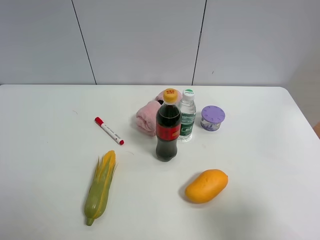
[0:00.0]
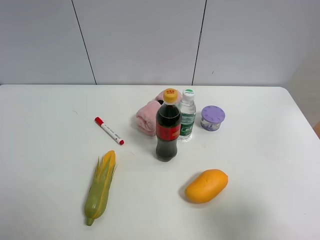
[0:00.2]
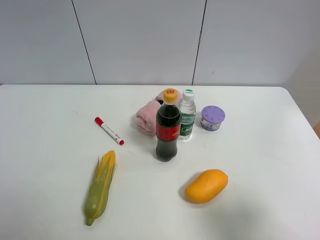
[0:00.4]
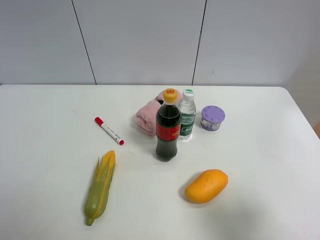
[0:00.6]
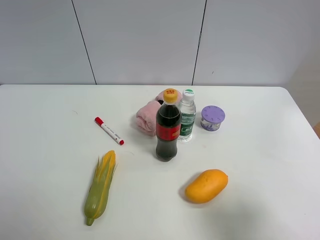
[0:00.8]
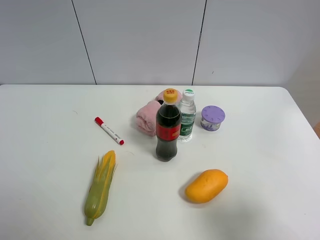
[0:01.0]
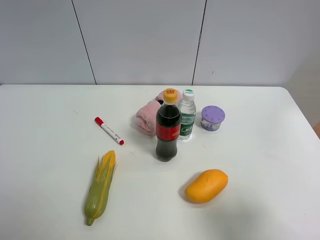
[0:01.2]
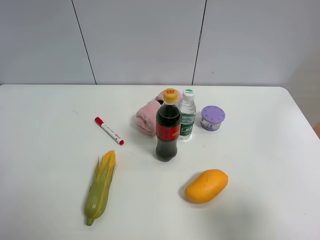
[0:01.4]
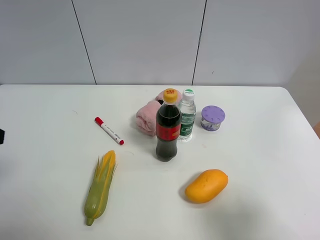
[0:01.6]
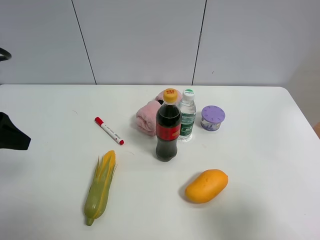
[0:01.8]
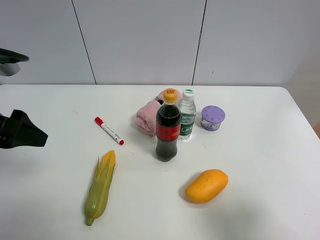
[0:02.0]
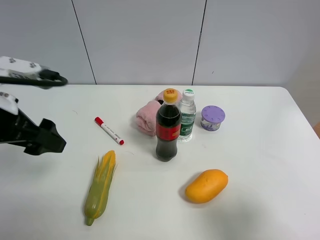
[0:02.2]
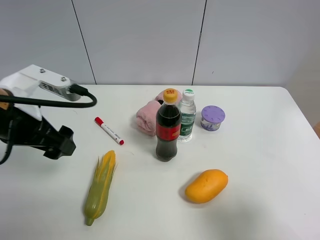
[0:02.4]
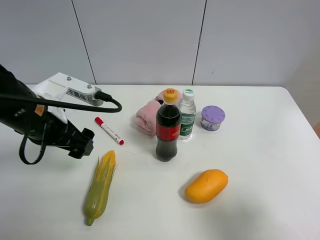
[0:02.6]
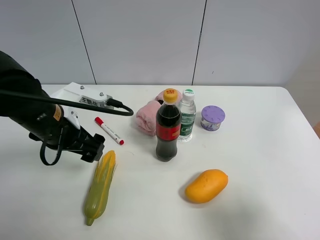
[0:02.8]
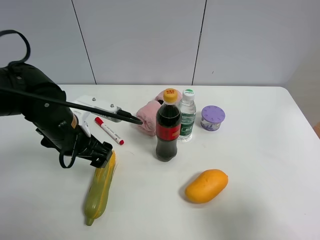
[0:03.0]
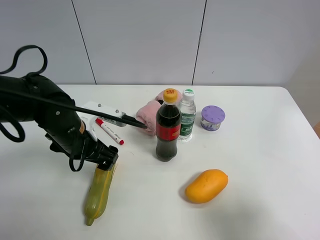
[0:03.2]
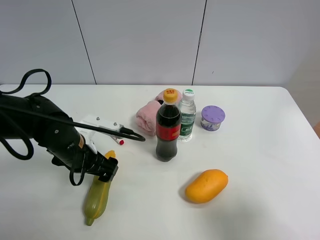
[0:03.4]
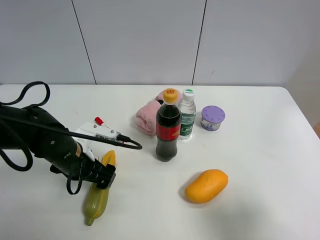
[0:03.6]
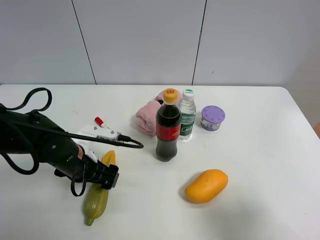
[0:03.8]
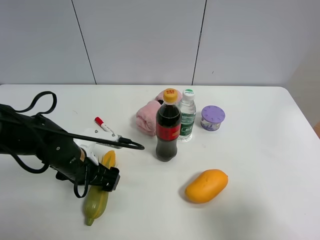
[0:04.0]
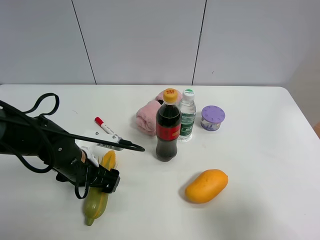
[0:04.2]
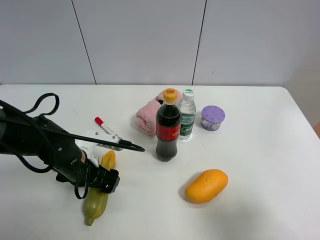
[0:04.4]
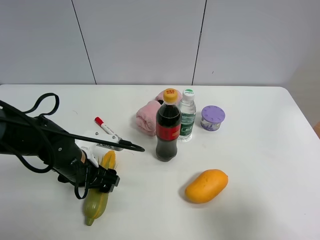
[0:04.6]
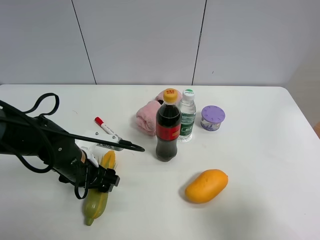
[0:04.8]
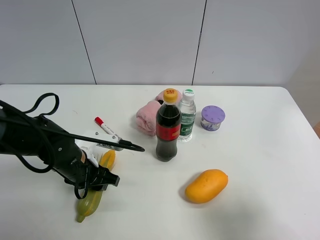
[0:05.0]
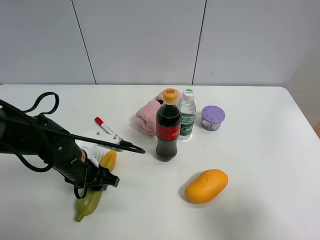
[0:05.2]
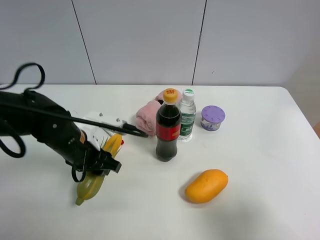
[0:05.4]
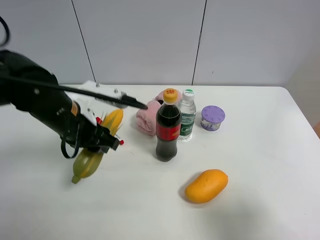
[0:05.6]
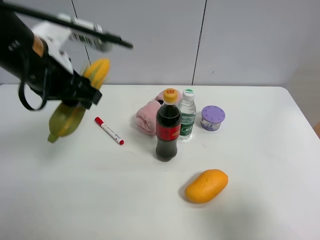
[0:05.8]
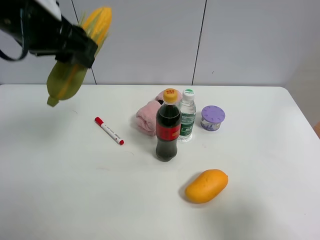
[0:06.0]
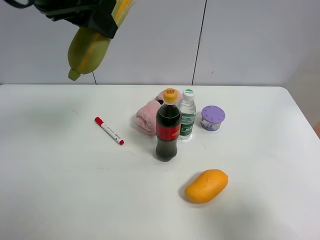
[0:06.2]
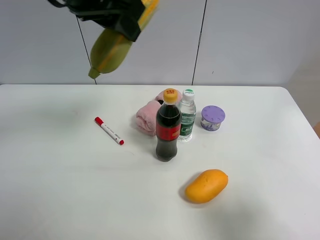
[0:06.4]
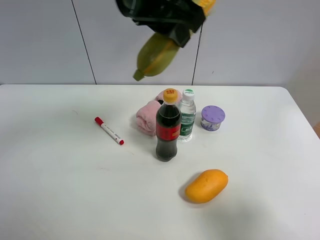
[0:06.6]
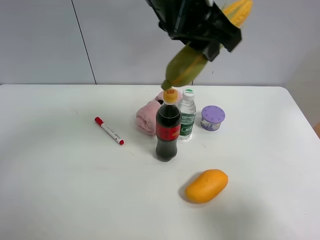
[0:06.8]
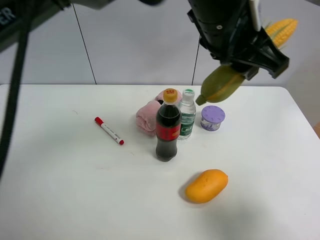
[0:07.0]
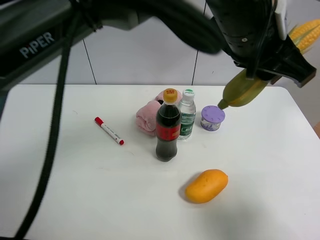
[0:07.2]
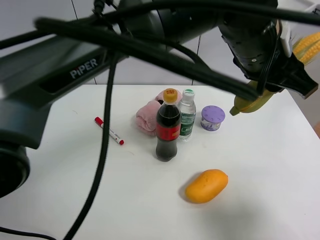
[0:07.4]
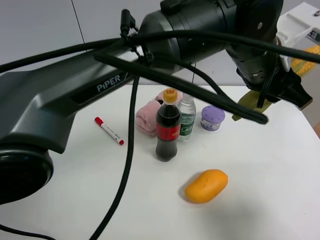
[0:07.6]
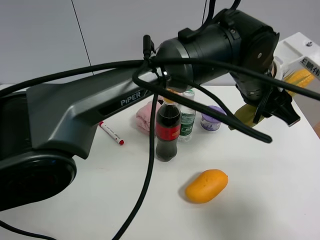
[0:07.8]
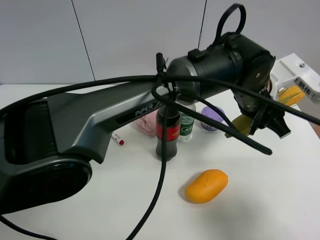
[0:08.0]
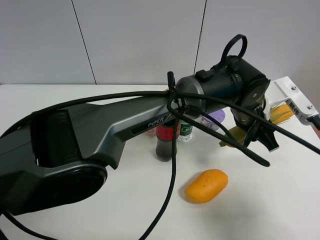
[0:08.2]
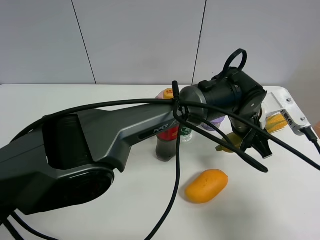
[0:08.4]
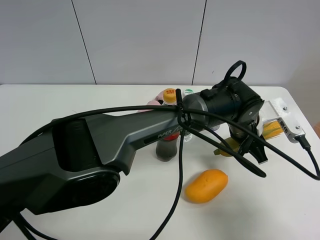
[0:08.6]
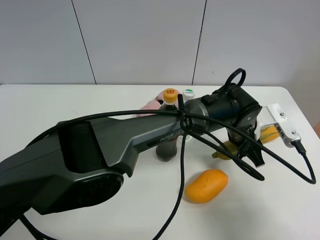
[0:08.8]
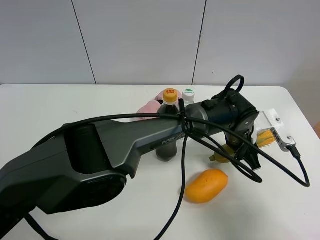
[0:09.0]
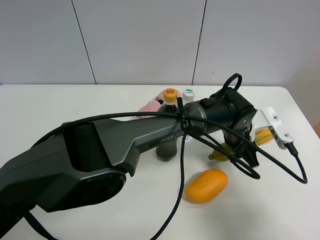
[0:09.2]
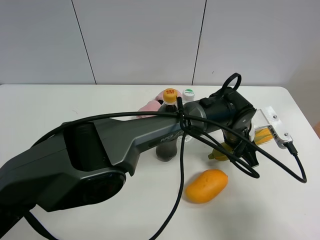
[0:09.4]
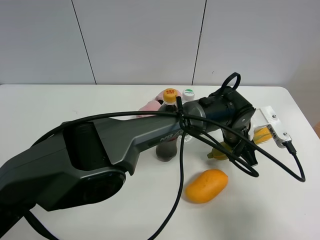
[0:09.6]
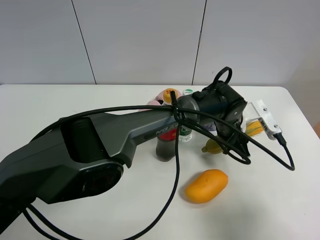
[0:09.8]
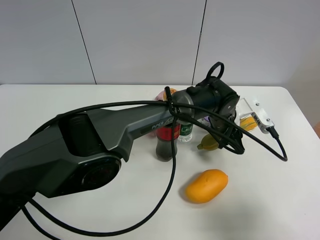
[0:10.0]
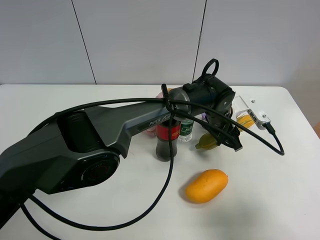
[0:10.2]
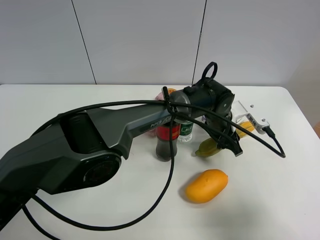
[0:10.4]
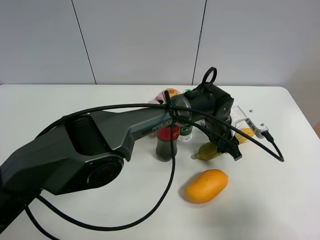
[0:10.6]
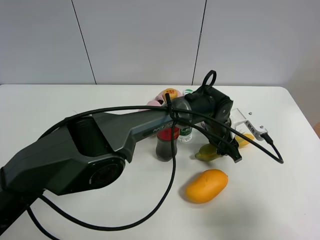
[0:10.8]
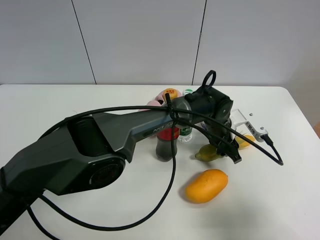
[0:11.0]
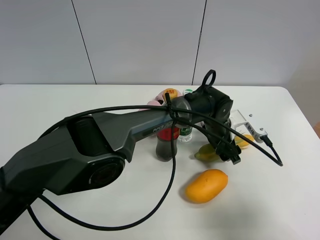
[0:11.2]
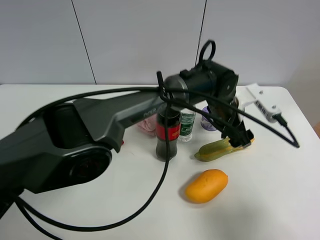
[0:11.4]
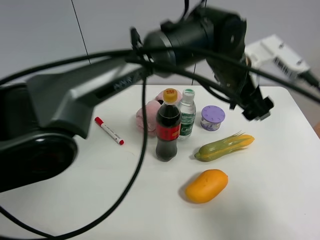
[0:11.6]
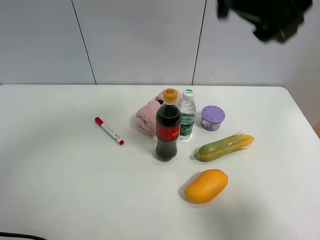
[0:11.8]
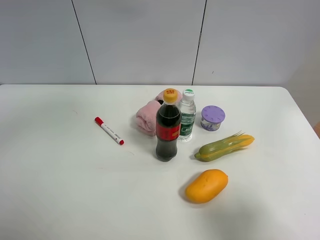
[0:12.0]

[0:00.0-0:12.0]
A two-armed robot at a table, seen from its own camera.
Task of the whole recording: the gripper move the object.
Step, 0:00.0 to 0:05.0: Grasp the corn with the left gripper.
Step, 0:05.2 to 0:11.2: Place the corn on the table with the left gripper.
0:01.6 to 0:03.0: The left gripper goes roughly 25 cm to the right, downward and forward.
0:03.0 to 0:04.4: The left gripper moves downward, about 10 cm.
0:04.4 to 0:06.0: The left gripper moves upward, roughly 30 cm, and closes up.
0:06.0 to 0:07.6: The left gripper goes roughly 30 cm to the right.
0:07.6 to 0:09.0: The left gripper moves downward, about 20 cm.
0:09.0 to 0:10.4: The left gripper shifts by some 5 cm.
0:10.4 to 0:12.0: The left gripper heads upward and to the left, covering roughly 40 cm, and opens its fingers.

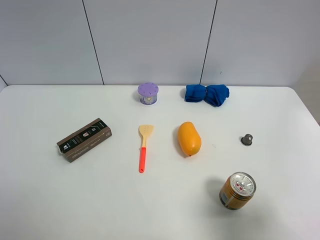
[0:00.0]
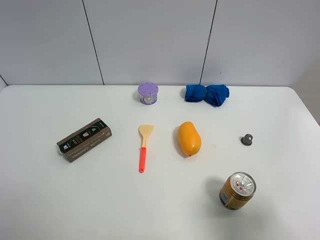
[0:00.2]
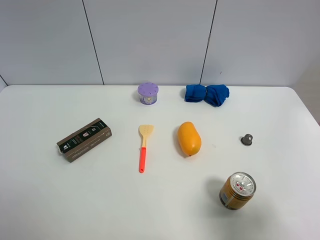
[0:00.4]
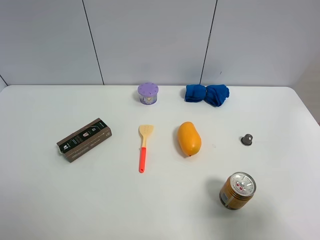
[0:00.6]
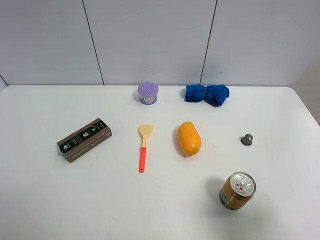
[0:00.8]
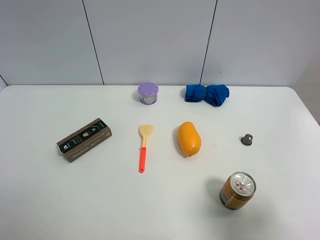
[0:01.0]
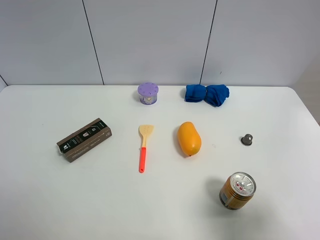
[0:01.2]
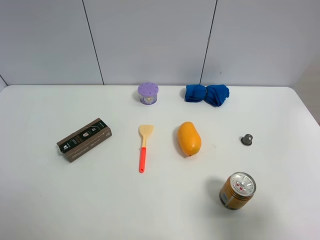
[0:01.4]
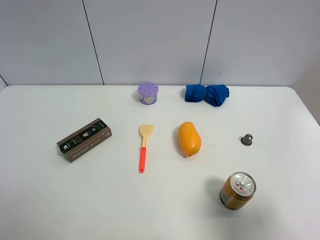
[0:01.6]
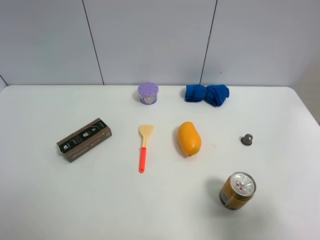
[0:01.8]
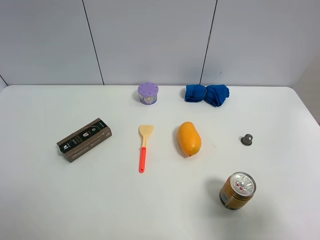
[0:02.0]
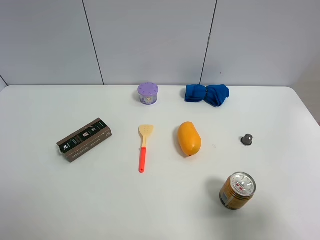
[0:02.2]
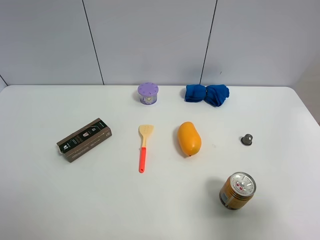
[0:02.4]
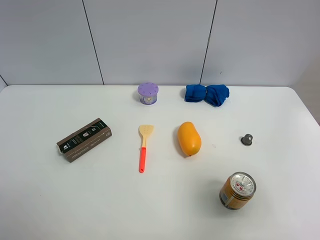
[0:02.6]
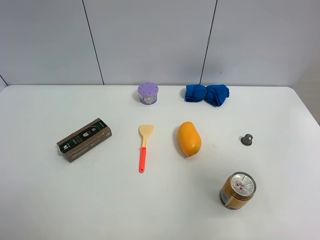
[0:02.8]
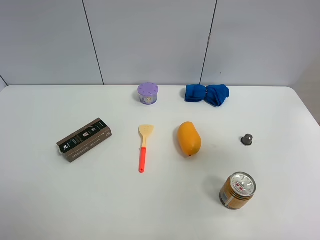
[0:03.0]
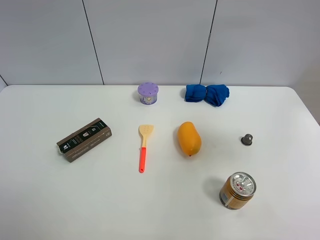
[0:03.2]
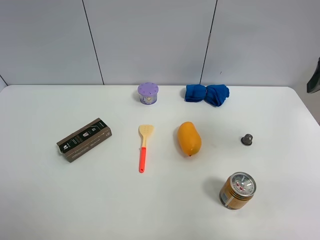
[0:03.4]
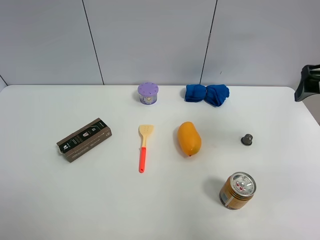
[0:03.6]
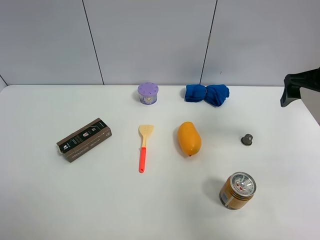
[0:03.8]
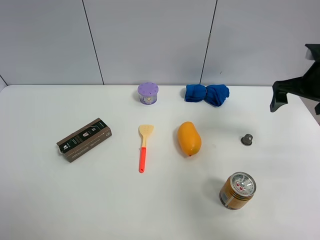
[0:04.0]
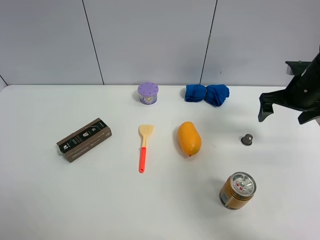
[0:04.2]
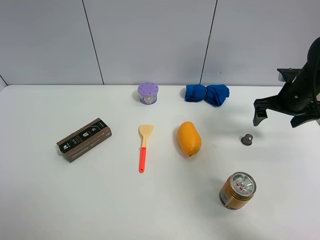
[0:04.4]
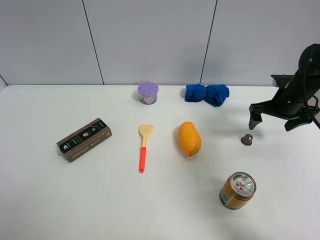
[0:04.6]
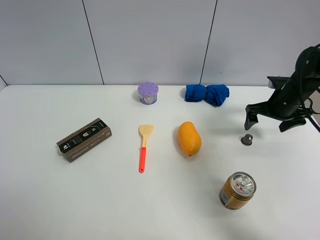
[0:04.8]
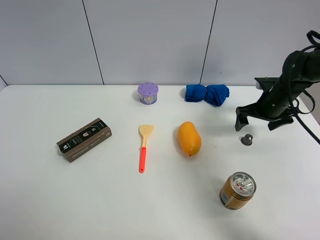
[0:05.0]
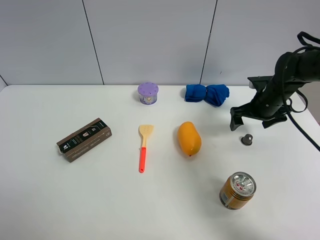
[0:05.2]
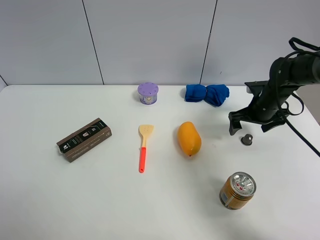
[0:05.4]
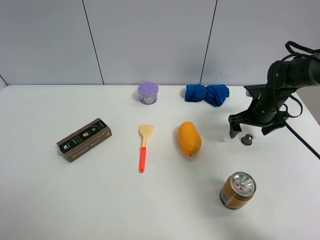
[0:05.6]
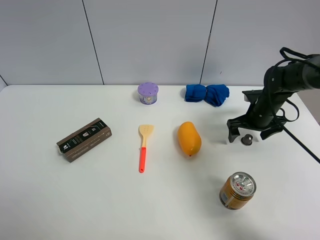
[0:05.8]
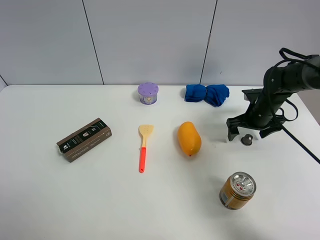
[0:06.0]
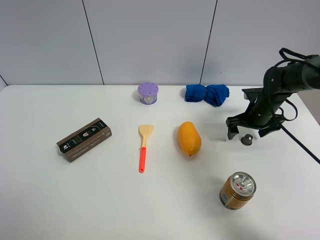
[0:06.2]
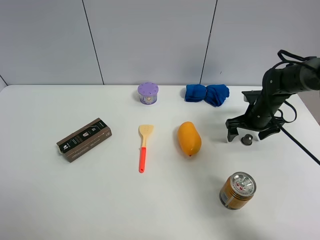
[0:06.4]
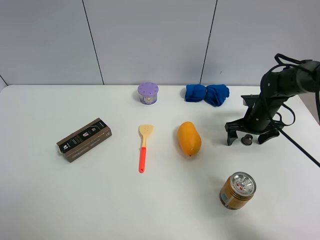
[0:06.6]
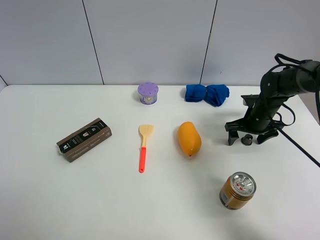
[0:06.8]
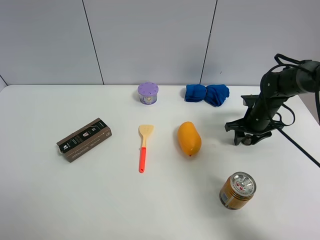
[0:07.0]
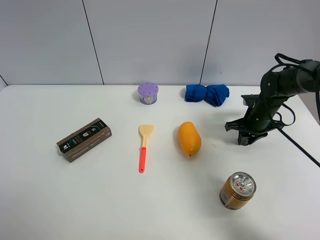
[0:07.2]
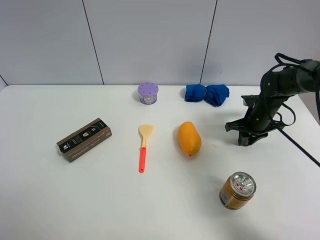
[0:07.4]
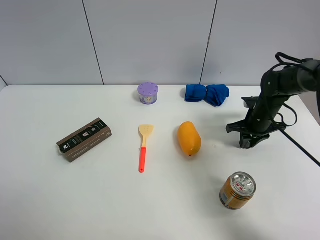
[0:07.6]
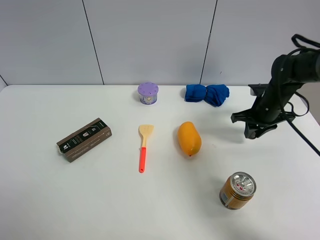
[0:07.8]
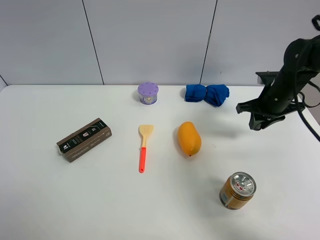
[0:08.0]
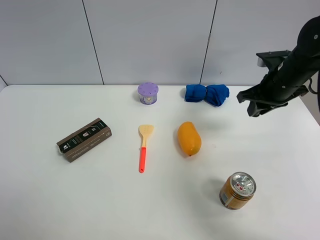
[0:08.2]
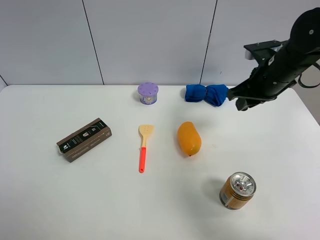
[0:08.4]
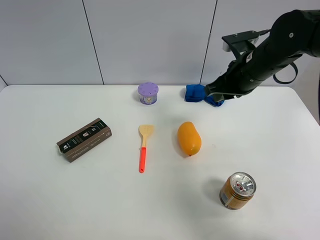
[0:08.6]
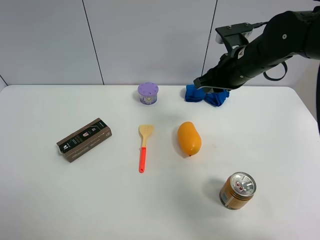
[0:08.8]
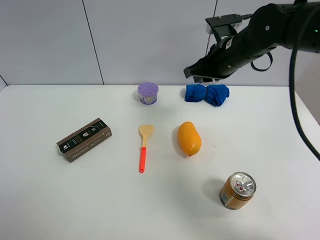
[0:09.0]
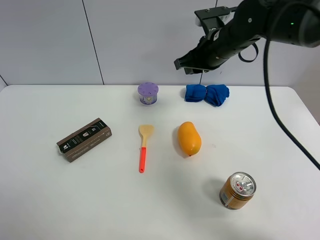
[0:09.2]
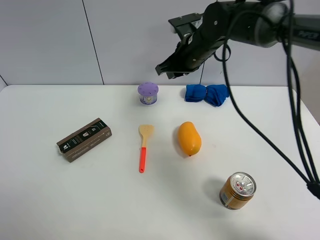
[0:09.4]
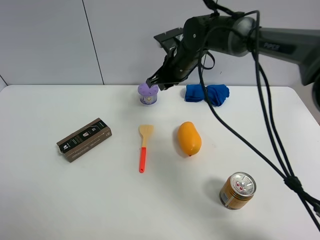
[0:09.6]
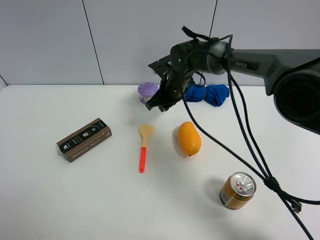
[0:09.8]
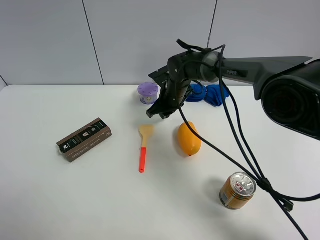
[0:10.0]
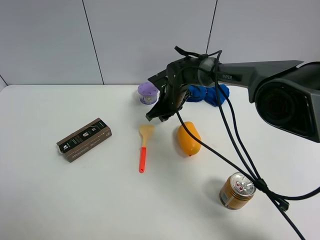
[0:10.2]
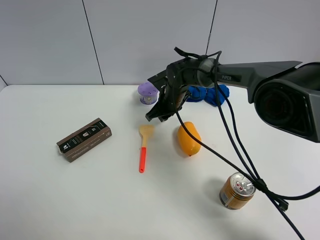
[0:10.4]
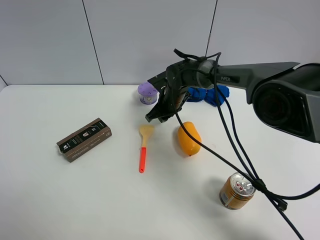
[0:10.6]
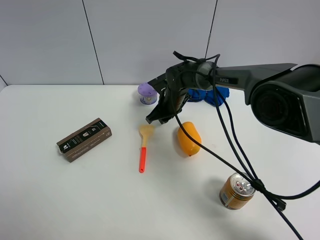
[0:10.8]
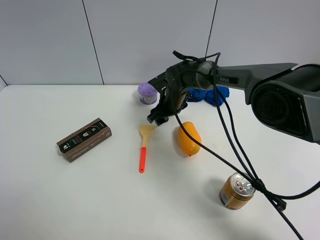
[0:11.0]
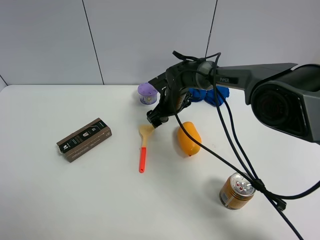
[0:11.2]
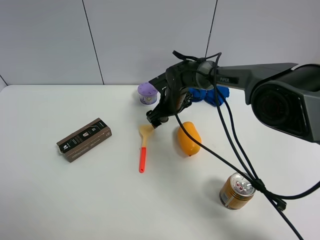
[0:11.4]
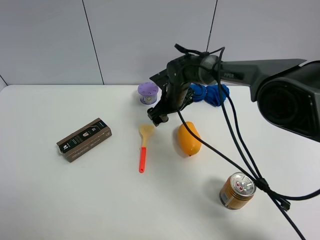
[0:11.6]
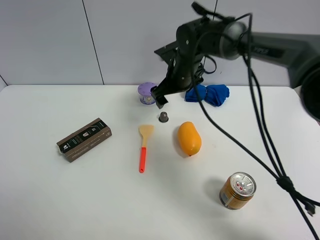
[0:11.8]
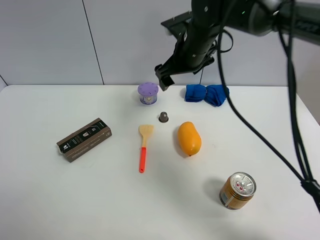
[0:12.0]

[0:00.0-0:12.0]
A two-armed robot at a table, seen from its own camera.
Task of the whole recording: the gripper move the object.
Step, 0:00.0 to 0:07.2: Grasp the coffee capsule with the right gripper.
Step, 0:07.4 to 0:11.8: Place the coffee capsule on the table with the right gripper.
0:00.0 to 0:01.6: Neither gripper changes place.
0:01.6 to 0:03.0: The right gripper moves forward and upward, approximately 20 cm.
0:03.0 to 0:04.4: The right gripper travels forward and downward by approximately 30 cm.
0:04.4 to 0:06.0: The right gripper goes approximately 10 cm downward.
0:06.0 to 0:07.6: The right gripper closes up.
0:07.6 to 0:09.0: The right gripper is displaced upward and to the left by approximately 20 cm.
0:09.0 to 0:10.4: The right gripper is displaced downward, to the left and forward by about 20 cm.
0:10.4 to 0:12.0: The right gripper goes roughly 20 cm upward, and opens up.
